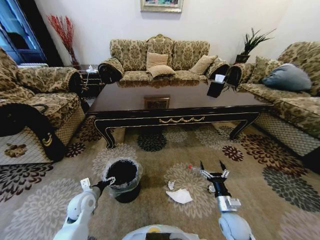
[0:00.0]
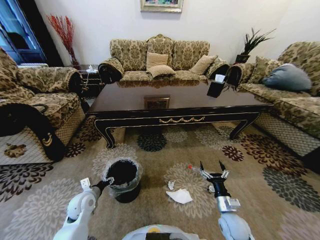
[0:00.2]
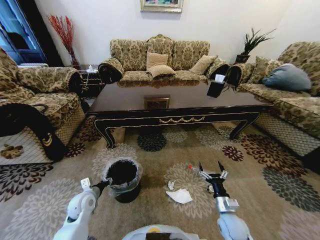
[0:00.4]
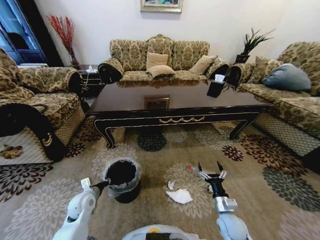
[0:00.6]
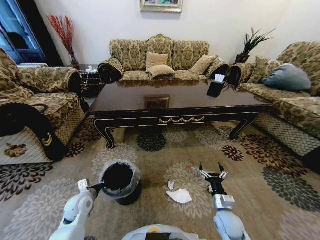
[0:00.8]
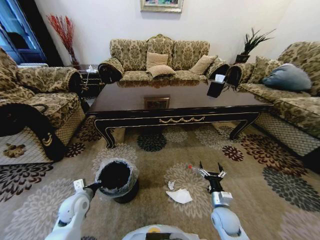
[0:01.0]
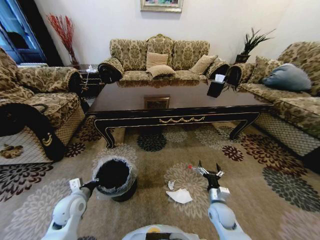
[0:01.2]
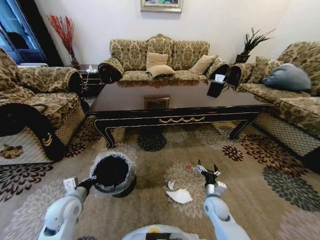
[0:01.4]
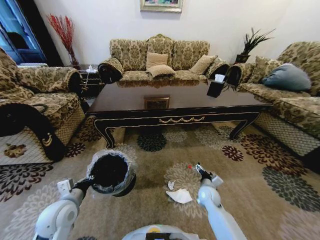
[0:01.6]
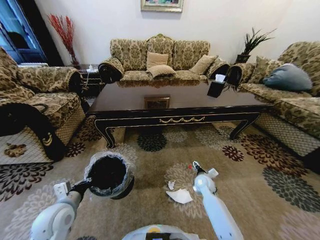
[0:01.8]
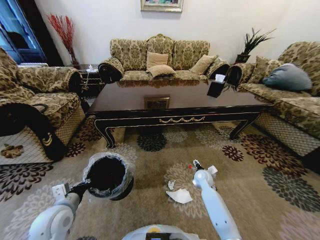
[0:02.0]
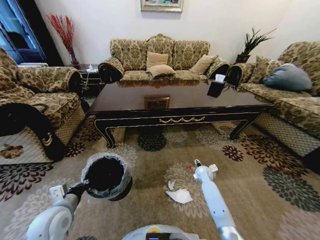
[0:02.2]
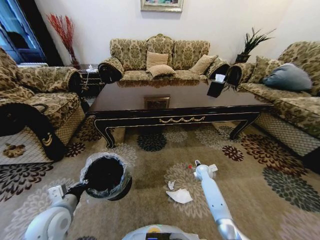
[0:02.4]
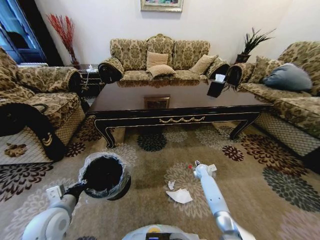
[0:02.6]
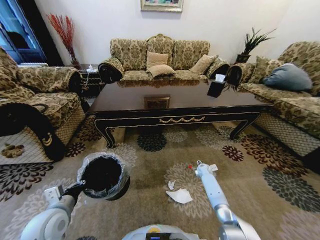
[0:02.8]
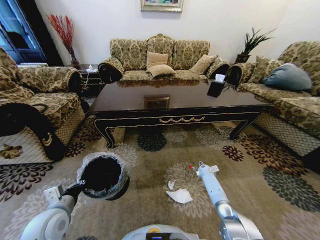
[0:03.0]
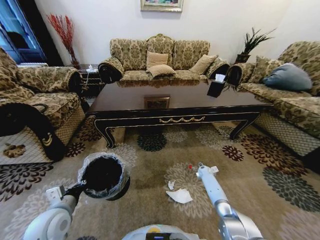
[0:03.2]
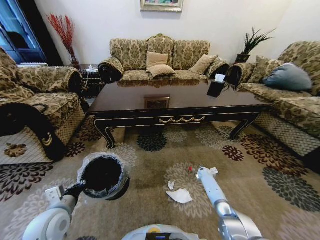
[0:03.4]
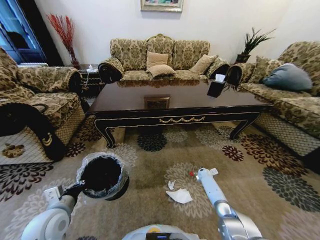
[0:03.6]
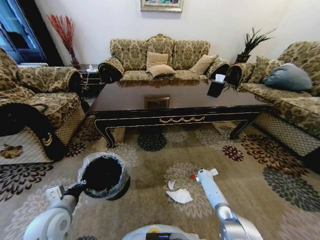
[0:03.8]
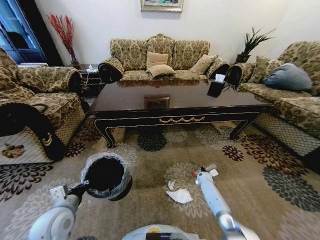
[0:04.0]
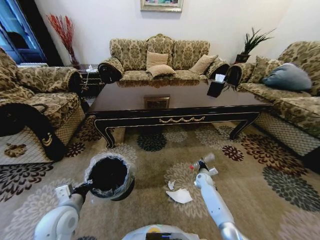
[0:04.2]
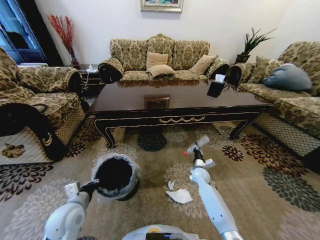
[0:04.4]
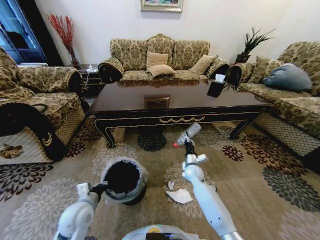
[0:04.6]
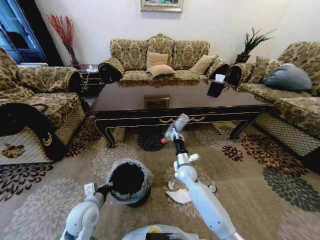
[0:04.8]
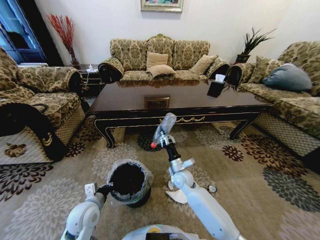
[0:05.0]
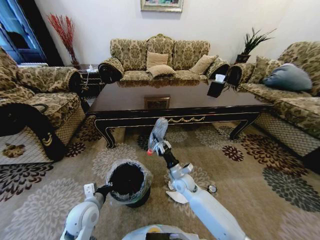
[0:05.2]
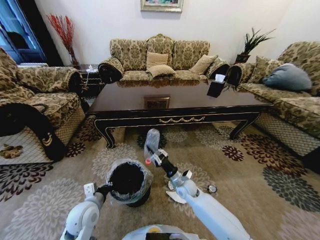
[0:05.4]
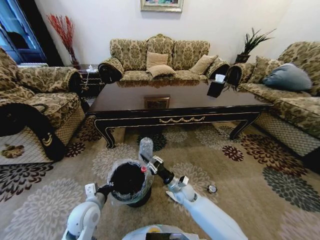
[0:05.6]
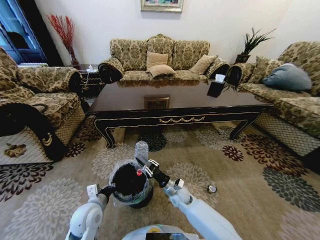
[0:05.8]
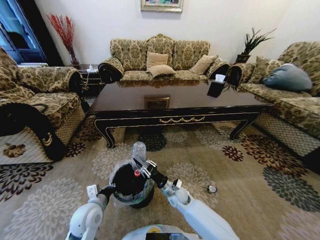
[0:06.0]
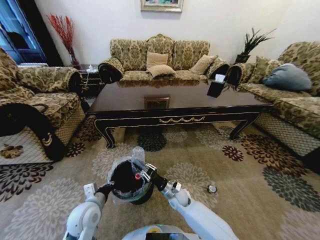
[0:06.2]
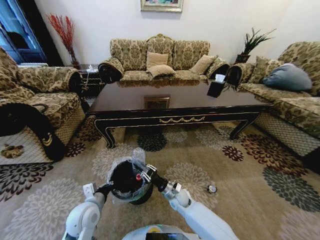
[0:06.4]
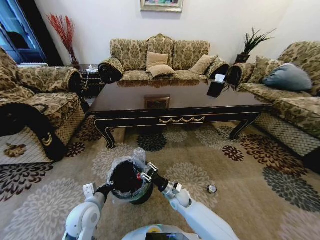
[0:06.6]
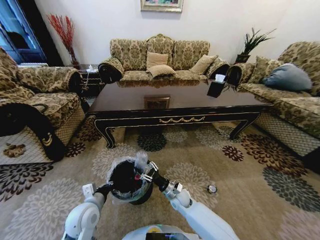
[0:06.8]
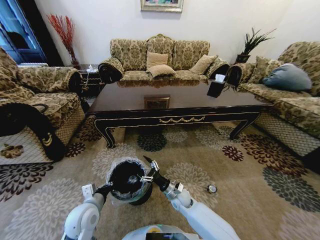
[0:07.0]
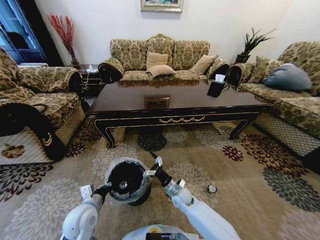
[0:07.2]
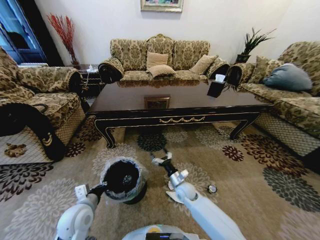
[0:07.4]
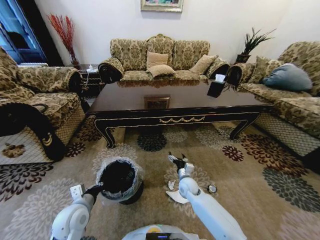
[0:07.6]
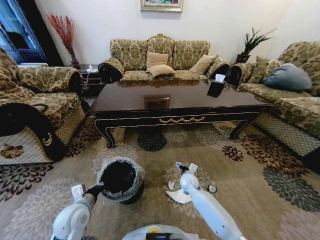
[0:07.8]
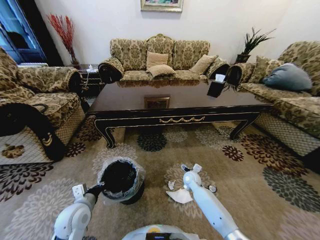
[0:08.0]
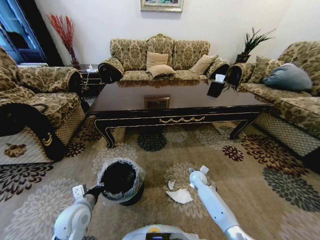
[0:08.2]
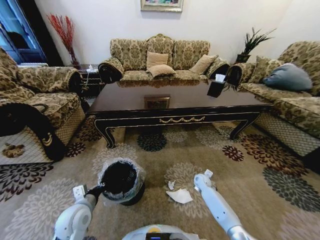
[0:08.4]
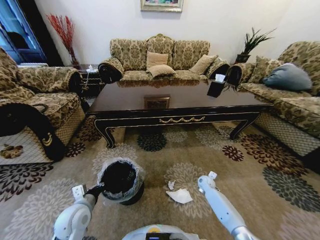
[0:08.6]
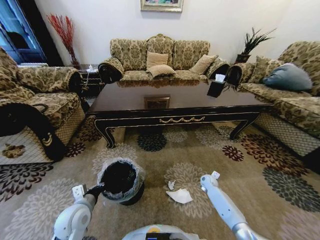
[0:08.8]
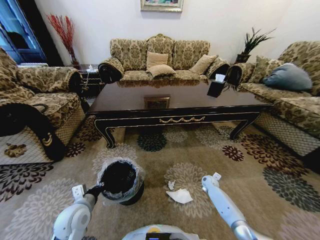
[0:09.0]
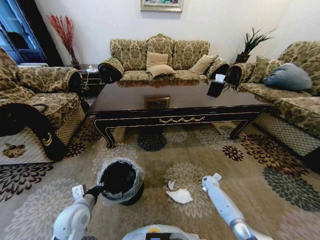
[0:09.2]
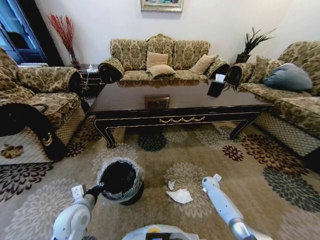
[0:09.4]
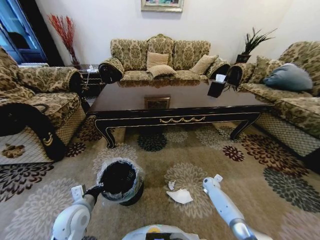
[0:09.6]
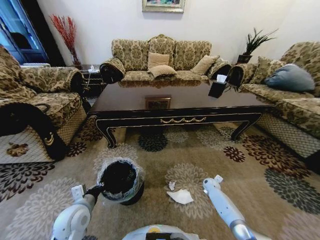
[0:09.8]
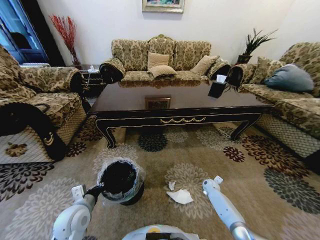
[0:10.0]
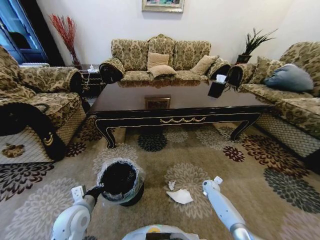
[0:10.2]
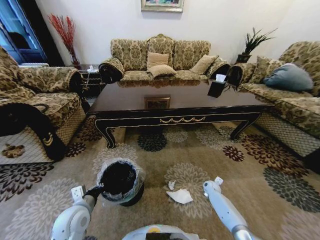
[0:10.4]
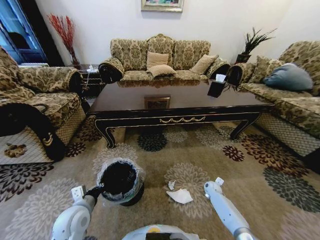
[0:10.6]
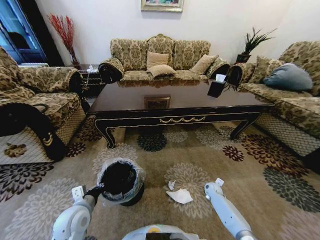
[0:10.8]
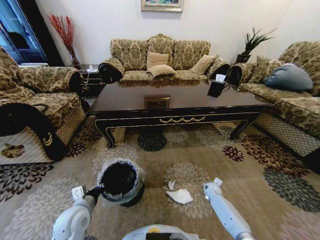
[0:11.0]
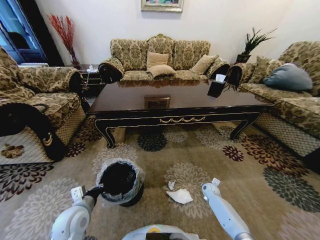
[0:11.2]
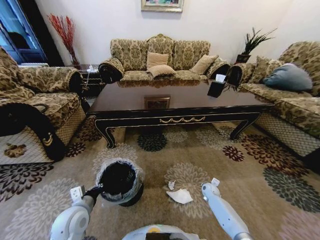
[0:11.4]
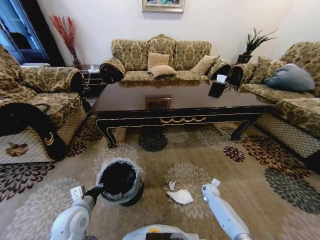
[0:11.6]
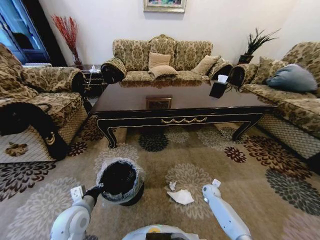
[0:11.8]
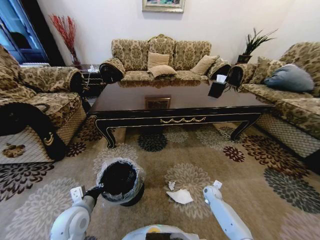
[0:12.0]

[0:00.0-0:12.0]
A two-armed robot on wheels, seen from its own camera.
Task of the whole recording: Move to the front of the table and pick up the trash from the floor, then place it into the trash bin.
0.0 to 1.6 s: The right gripper travels forward by roughly 10 cm, while the left gripper goes about 10 cm upward, and closes up.
1.6 to 3.0 s: The right gripper travels forward, to the right and downward by roughly 20 cm.
3.0 to 4.4 s: The right gripper shifts some 15 cm to the left, upward and backward, and closes.
4.4 to 6.0 s: The left gripper ends up some 5 cm from where it was. The right gripper heads to the left and backward, covering roughly 20 cm.
6.0 to 7.6 s: The right gripper moves to the right, some 5 cm, and opens up.
7.6 to 9.0 s: The right gripper heads to the right and downward, covering about 20 cm.
9.0 to 10.4 s: The grippers make only small movements.
10.4 to 12.0 s: There are only small adjustments of the grippers.

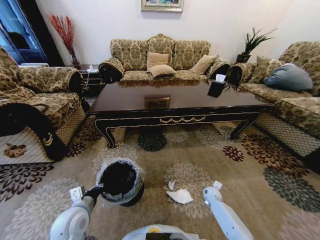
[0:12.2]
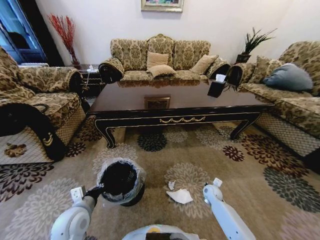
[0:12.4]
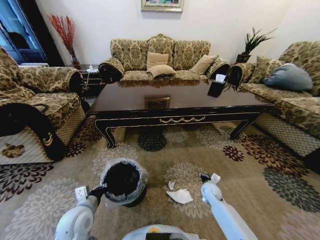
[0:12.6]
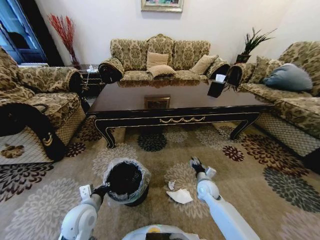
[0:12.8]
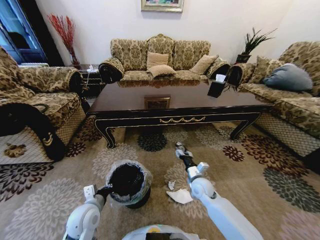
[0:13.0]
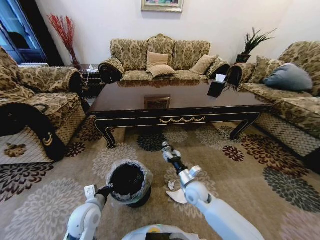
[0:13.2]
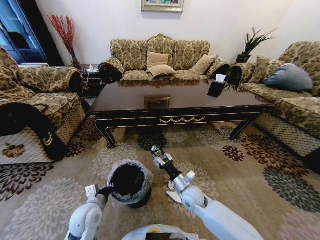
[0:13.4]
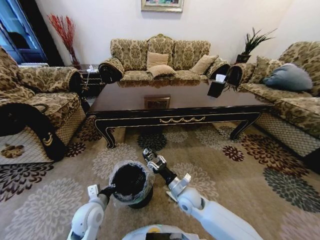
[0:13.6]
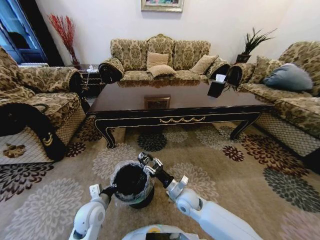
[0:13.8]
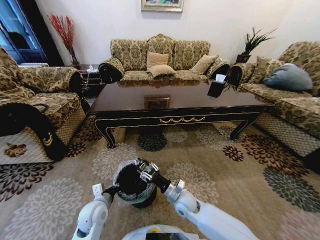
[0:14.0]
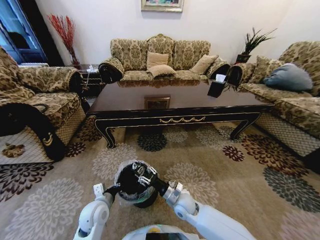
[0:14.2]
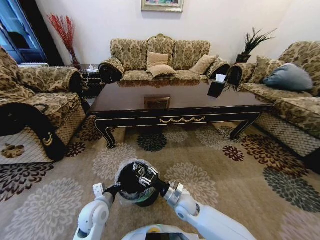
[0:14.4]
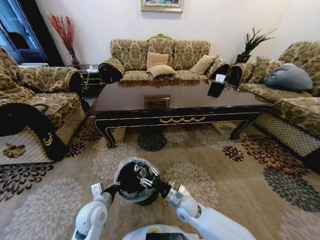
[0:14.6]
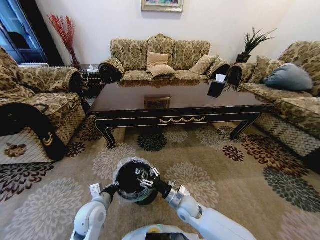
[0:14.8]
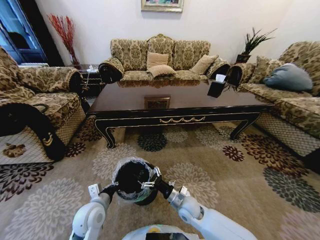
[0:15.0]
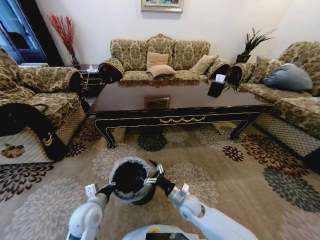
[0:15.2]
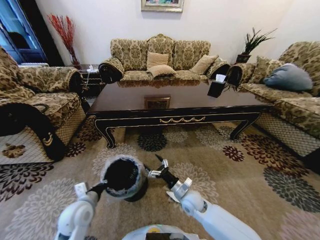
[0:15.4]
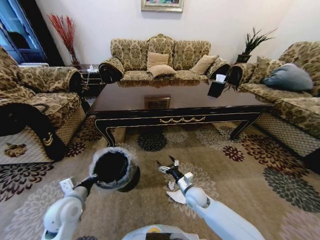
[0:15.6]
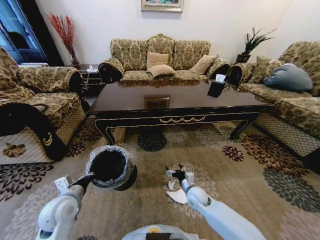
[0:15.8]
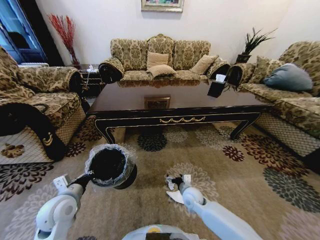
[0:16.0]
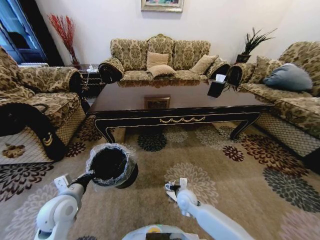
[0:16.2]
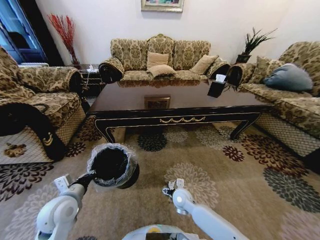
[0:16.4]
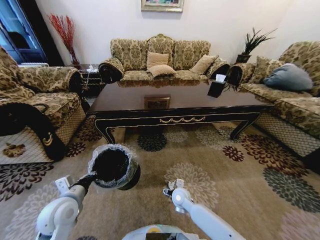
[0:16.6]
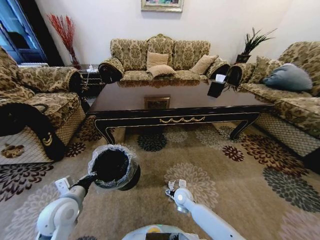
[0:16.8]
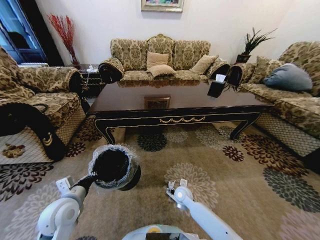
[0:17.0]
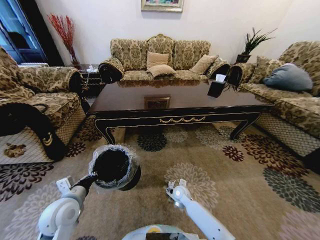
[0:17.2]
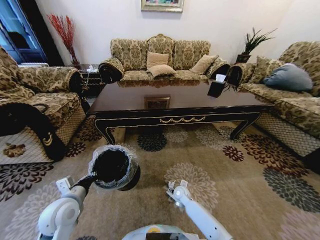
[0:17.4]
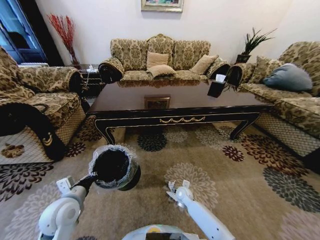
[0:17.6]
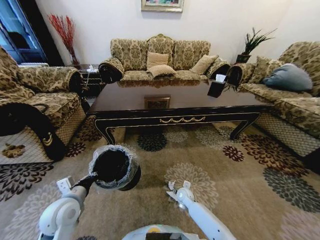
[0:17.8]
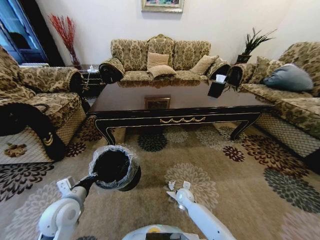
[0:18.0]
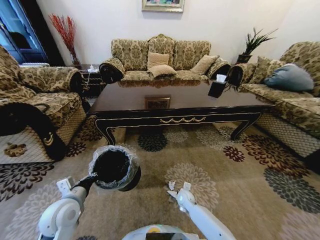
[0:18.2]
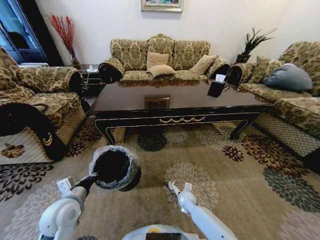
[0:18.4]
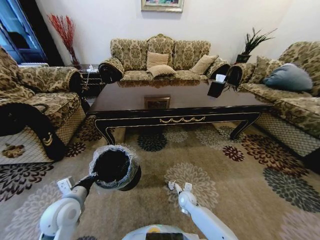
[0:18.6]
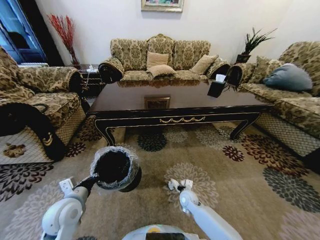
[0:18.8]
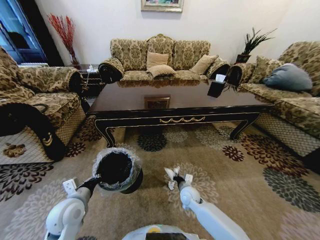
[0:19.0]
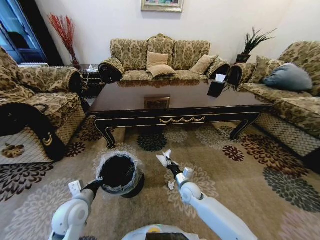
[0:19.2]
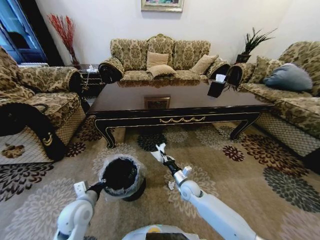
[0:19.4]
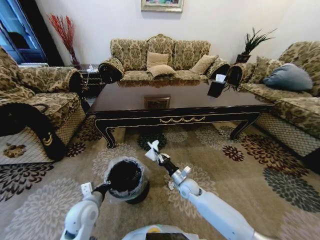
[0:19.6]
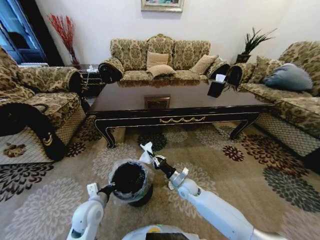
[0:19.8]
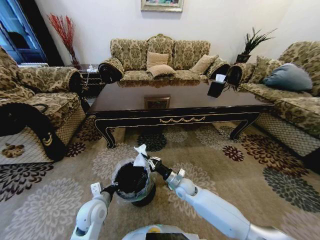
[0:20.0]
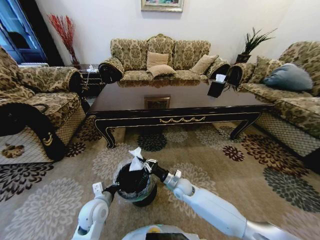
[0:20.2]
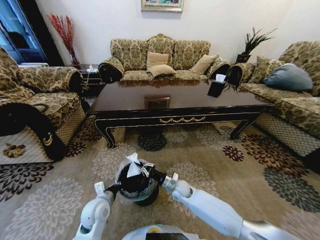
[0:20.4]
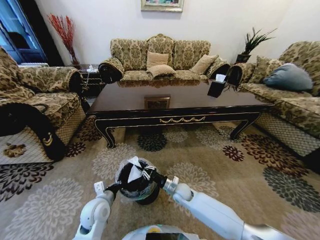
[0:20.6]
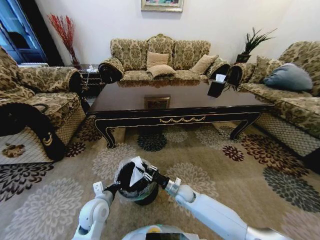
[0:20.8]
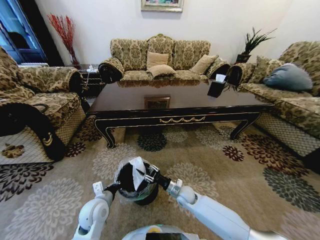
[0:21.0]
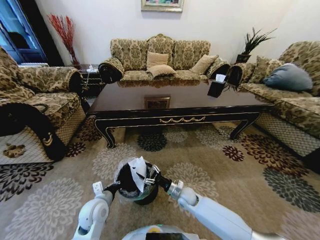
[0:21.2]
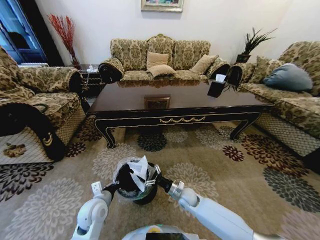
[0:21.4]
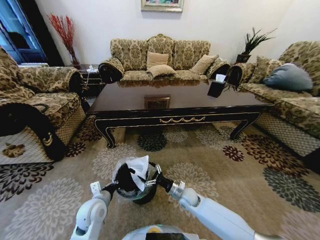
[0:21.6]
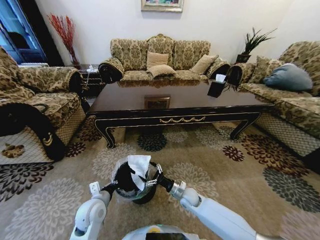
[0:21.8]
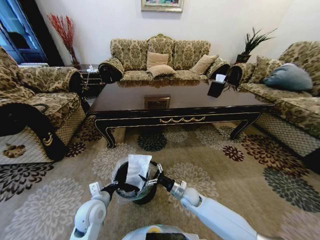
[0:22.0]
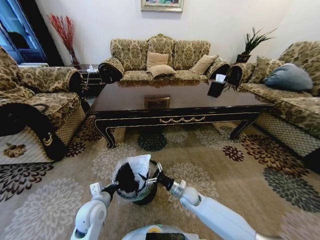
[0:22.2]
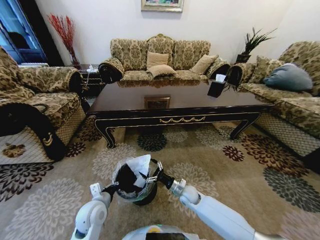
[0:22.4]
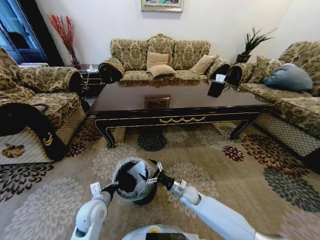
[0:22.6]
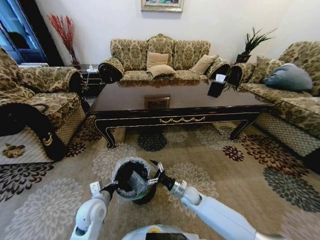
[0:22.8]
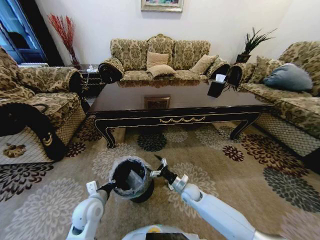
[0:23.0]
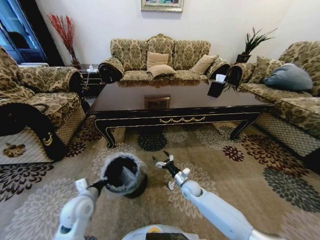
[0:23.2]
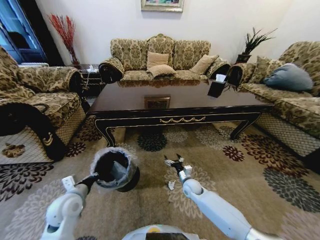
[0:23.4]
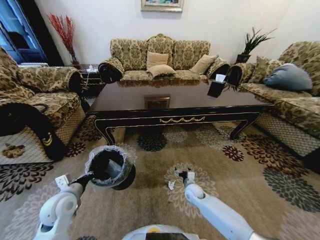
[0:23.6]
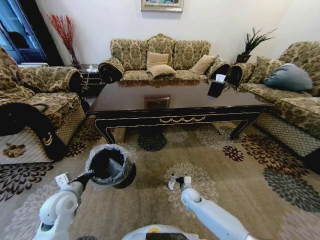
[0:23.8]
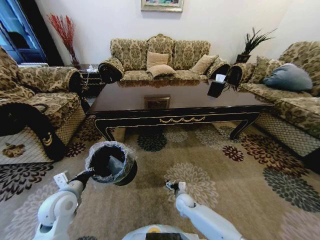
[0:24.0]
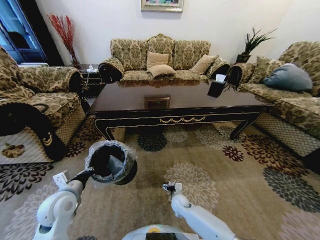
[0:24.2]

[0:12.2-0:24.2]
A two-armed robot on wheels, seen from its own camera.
Task of the whole recording: Move to the front of the table and pick up the trash from the floor, then place it into the trash bin.
12.2 to 13.8 s: The right gripper shifts roughly 25 cm to the left and upward; the left gripper ends up about 5 cm from where it was.
13.8 to 15.2 s: The right gripper opens its fingers.
15.2 to 16.6 s: The left gripper travels to the left and upward by about 10 cm. Meanwhile the right gripper shifts by some 5 cm.
16.6 to 18.2 s: The right gripper travels downward by approximately 10 cm, and closes its fingers.
18.2 to 19.8 s: The right gripper heads upward, covering roughly 10 cm, and closes, while the left gripper moves downward and to the right, roughly 10 cm.
19.8 to 21.2 s: The right gripper ends up about 5 cm from where it was, and opens up.
21.2 to 22.6 s: Both grippers stay about where they are.
22.6 to 24.2 s: The left gripper shifts about 10 cm to the left and upward; the right gripper goes approximately 5 cm downward.
